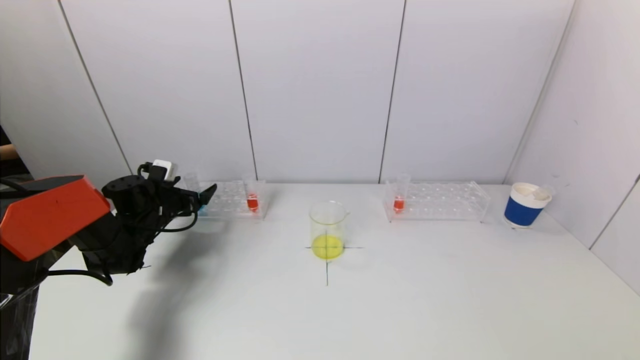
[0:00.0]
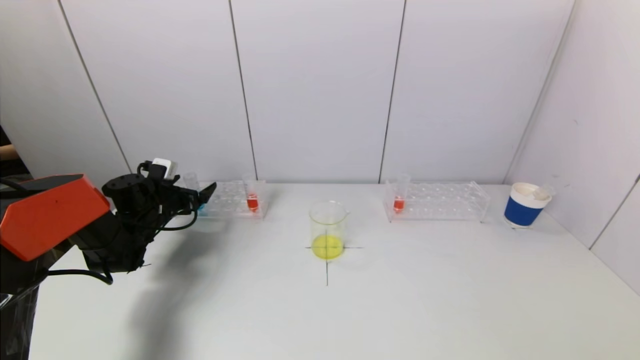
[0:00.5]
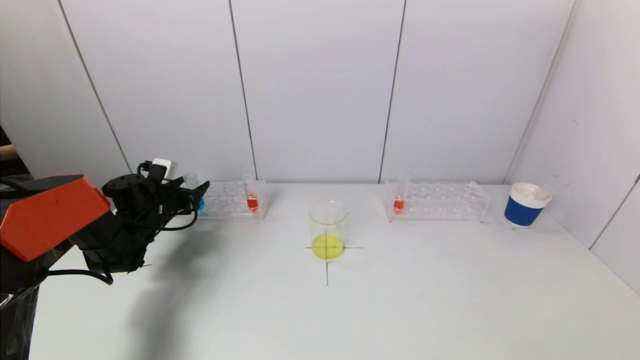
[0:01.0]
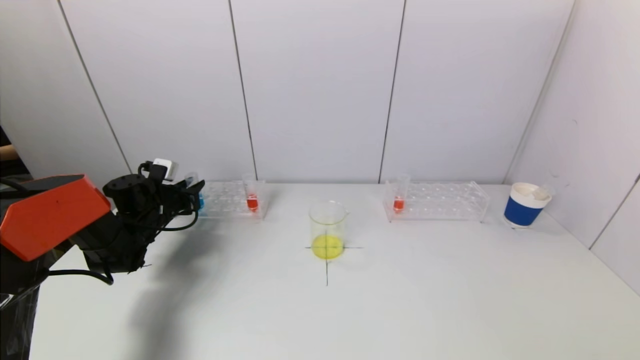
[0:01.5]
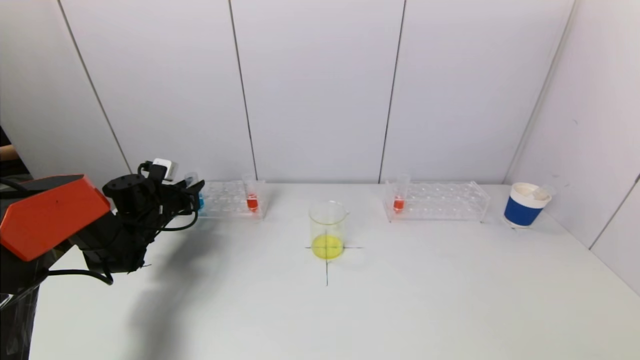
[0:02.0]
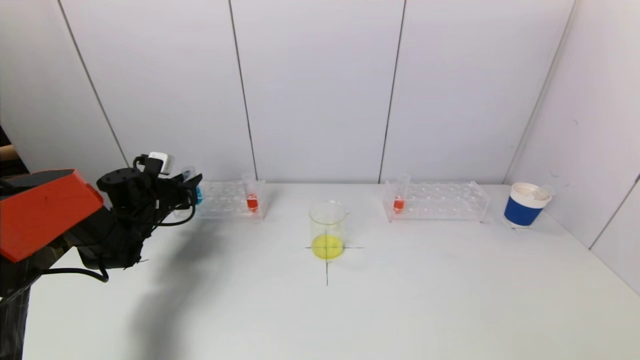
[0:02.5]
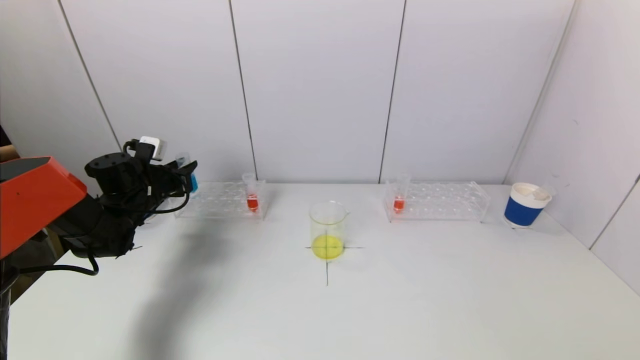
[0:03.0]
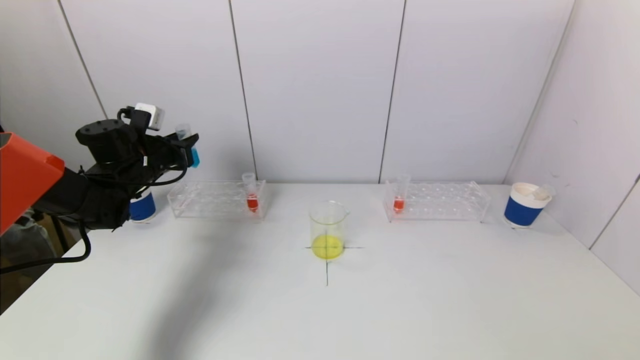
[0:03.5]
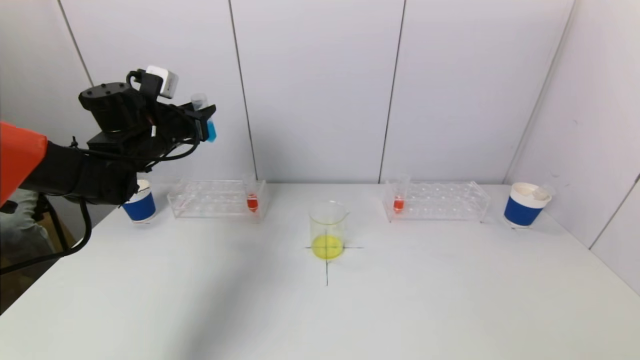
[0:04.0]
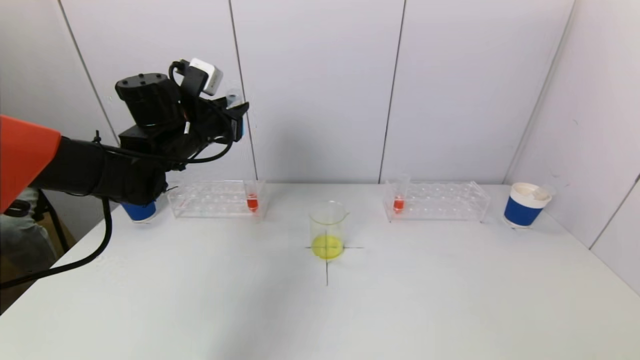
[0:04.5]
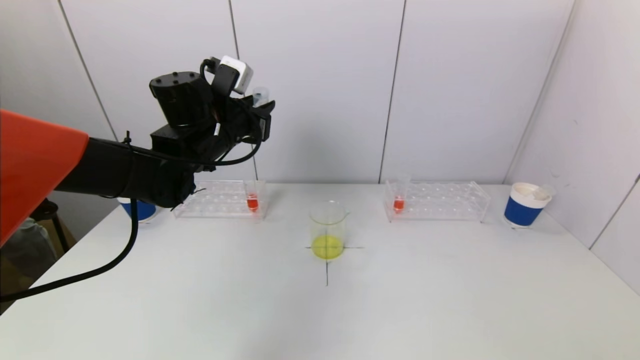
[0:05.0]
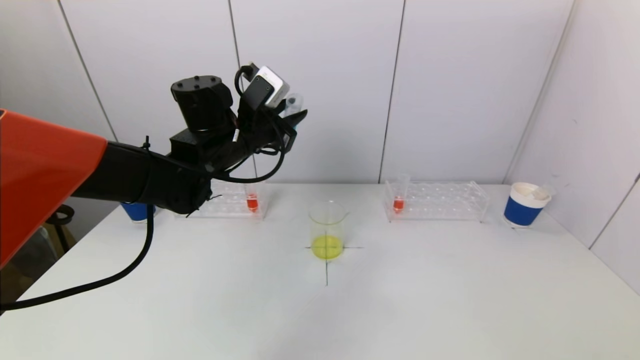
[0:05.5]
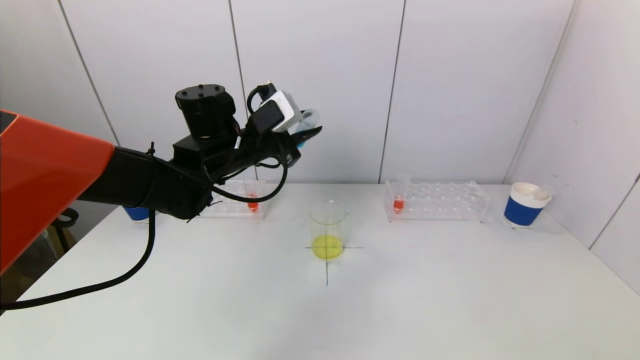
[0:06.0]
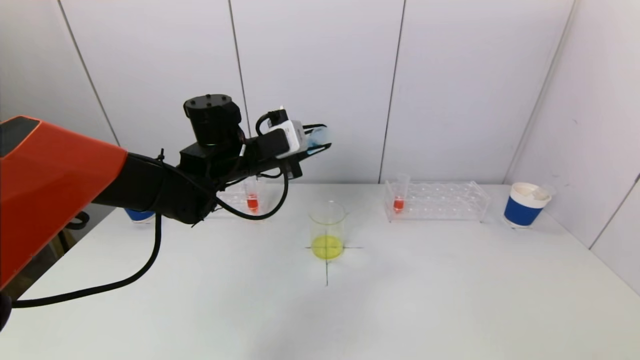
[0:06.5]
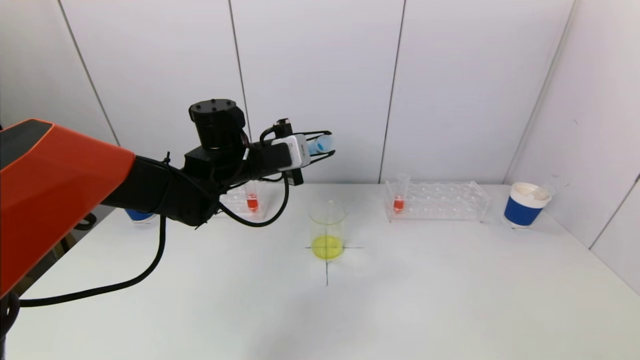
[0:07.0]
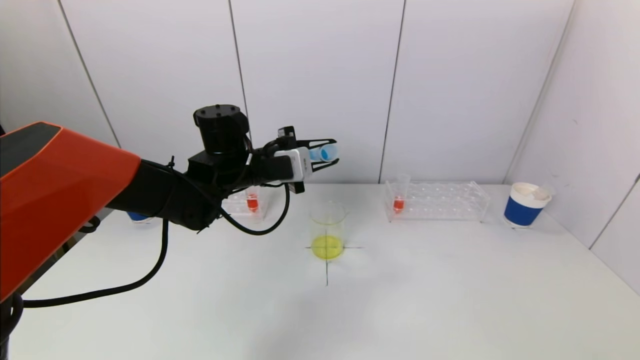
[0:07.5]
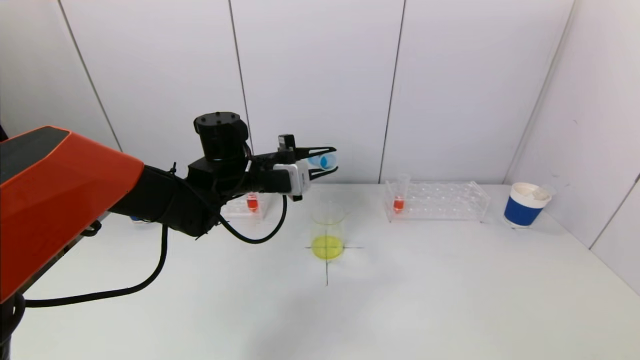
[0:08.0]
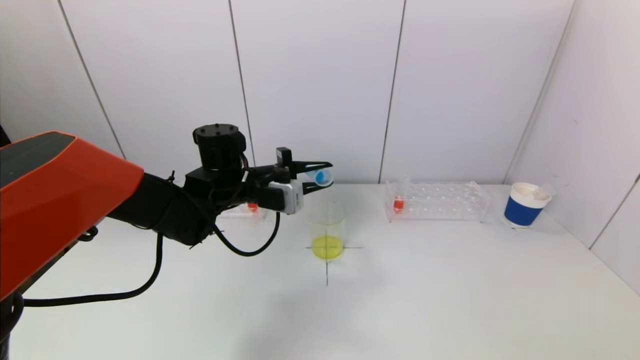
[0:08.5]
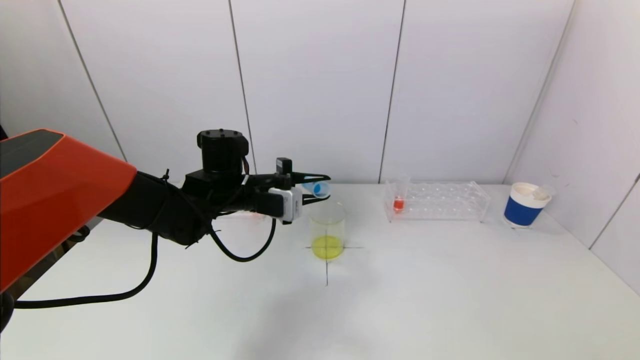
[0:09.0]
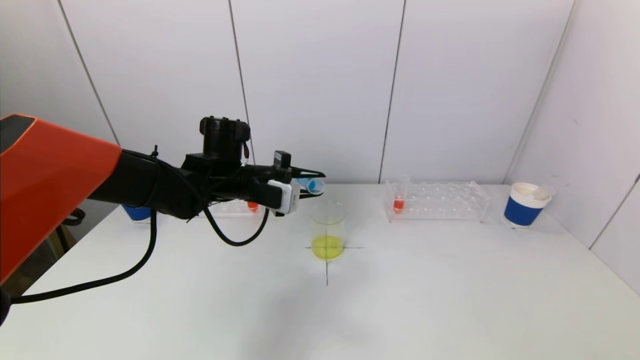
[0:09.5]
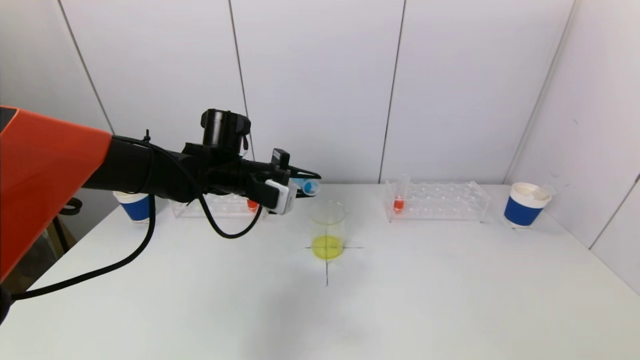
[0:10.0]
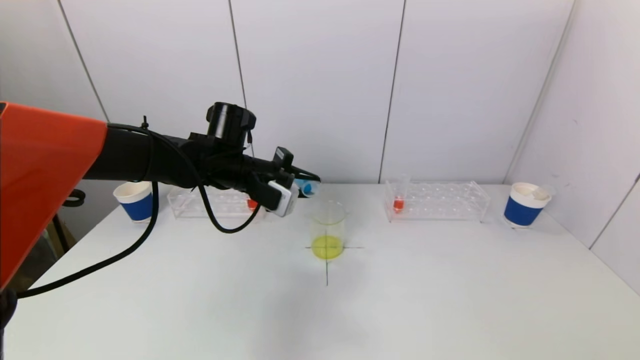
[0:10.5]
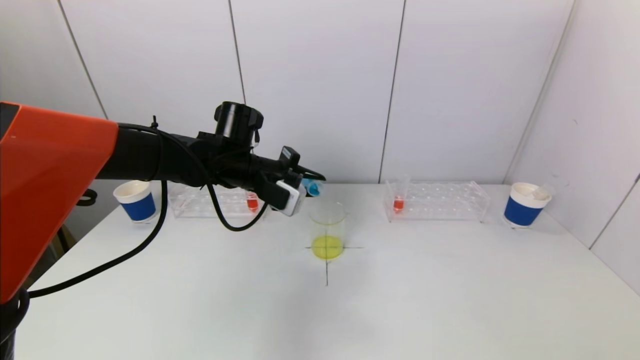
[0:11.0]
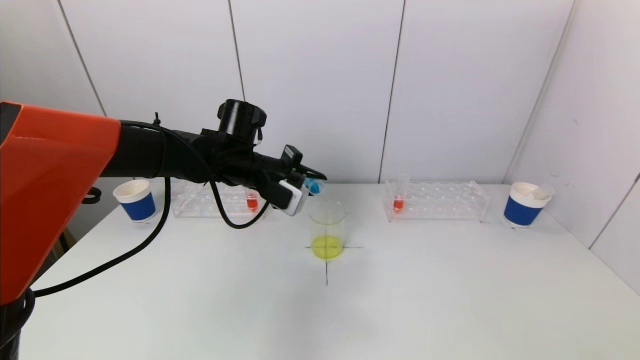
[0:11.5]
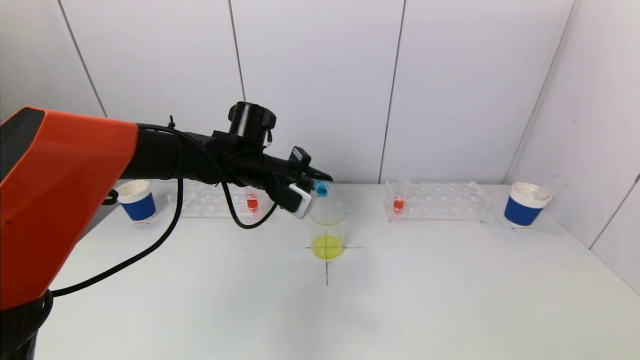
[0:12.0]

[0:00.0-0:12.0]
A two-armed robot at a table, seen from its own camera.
Task of the whole recording: pick up a test tube with pigment on left test tube rack and a test tube with pigment on right test tube rack by grippers and pour them into the beaker.
0:00.0 to 0:02.0: The left gripper closes.
0:02.0 to 0:04.0: The left gripper travels upward by some 20 cm.
0:04.0 to 0:06.0: The left gripper heads to the right, covering roughly 15 cm.
0:10.0 to 0:12.0: The grippers make only small movements.

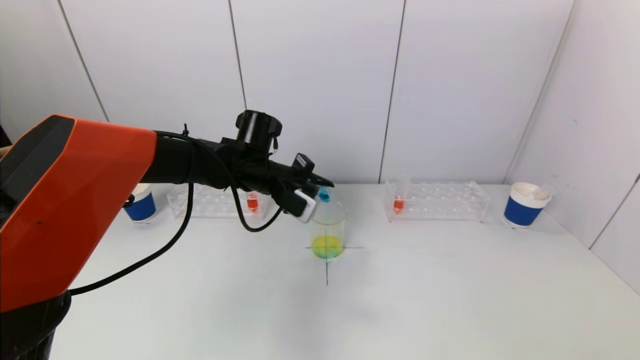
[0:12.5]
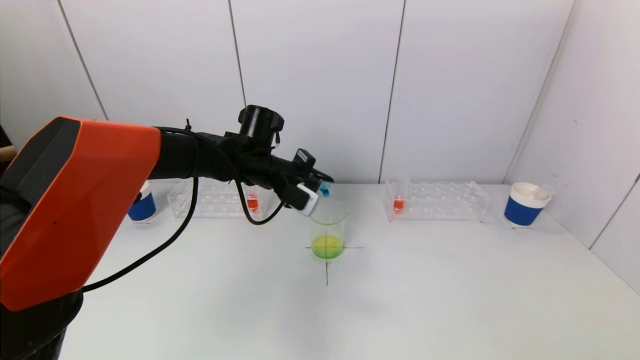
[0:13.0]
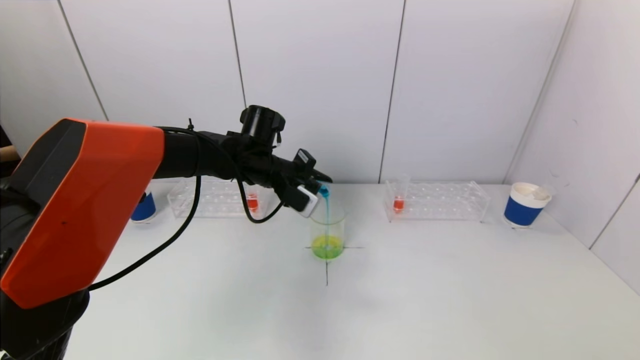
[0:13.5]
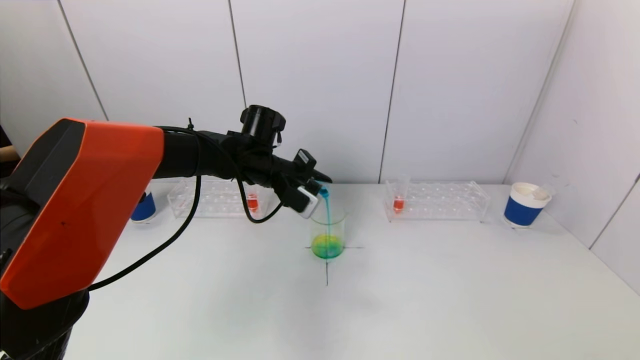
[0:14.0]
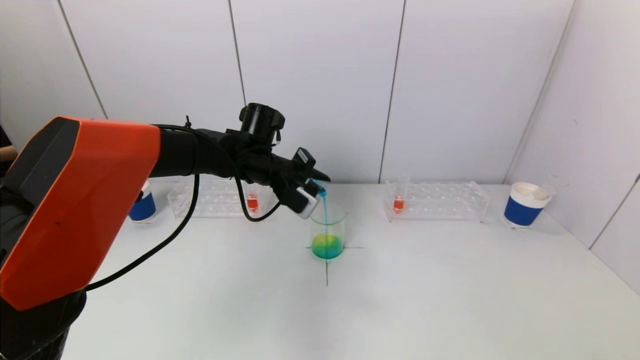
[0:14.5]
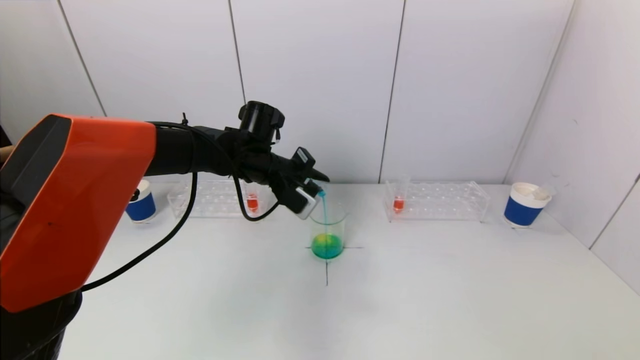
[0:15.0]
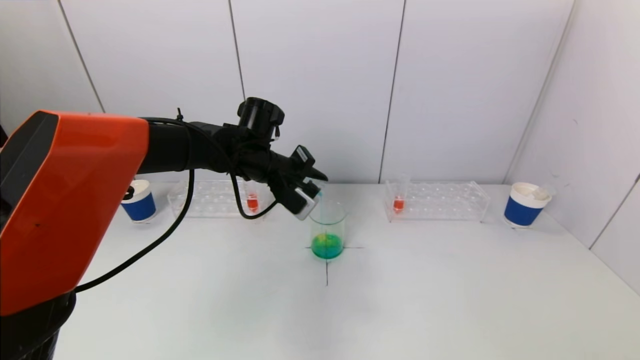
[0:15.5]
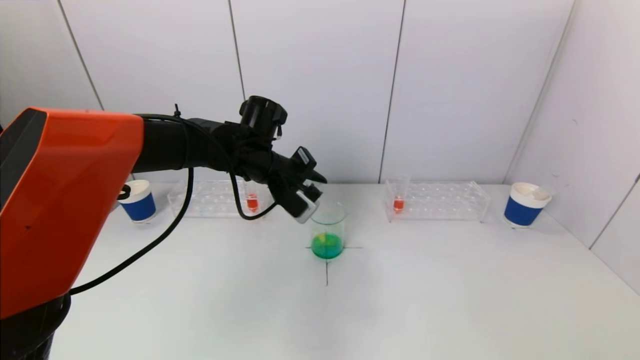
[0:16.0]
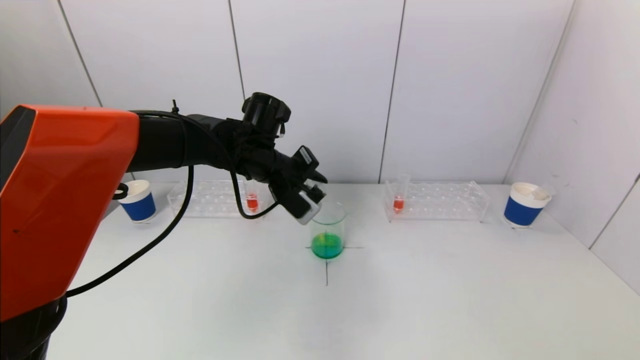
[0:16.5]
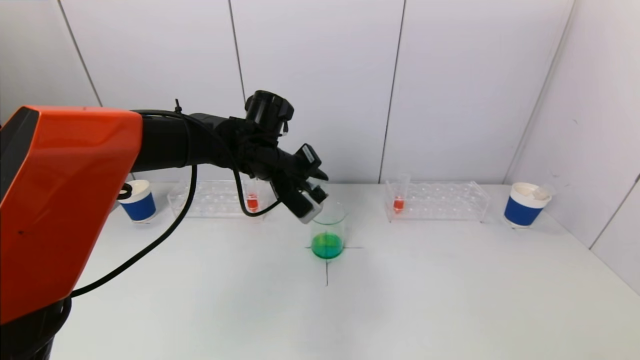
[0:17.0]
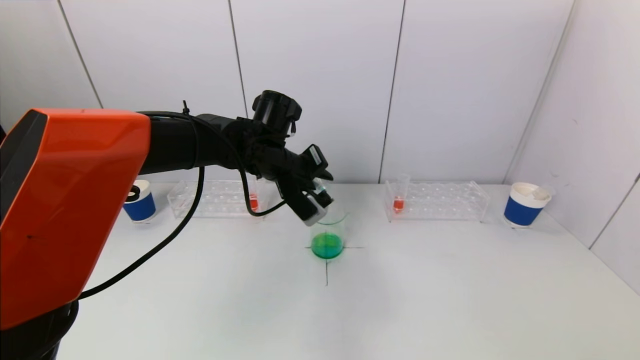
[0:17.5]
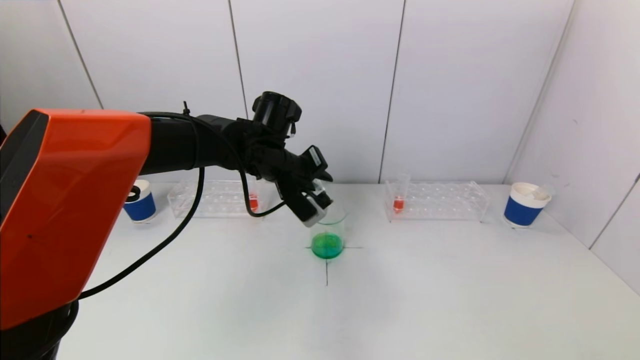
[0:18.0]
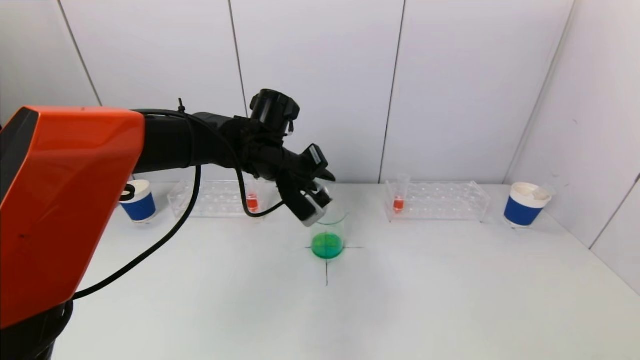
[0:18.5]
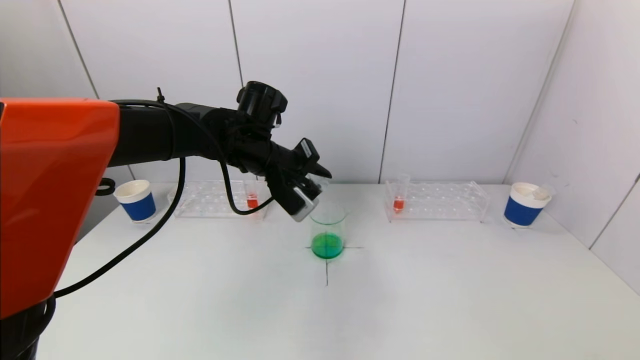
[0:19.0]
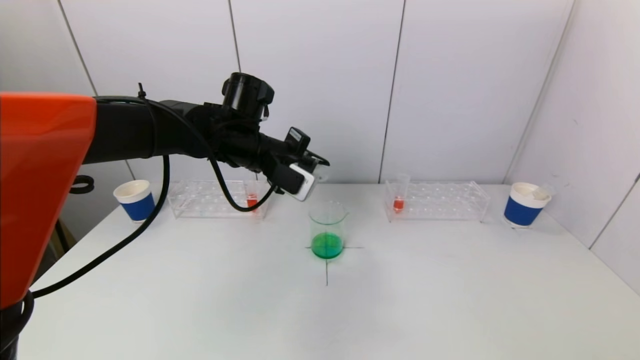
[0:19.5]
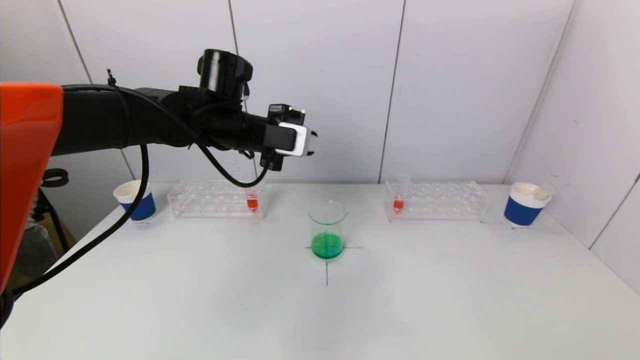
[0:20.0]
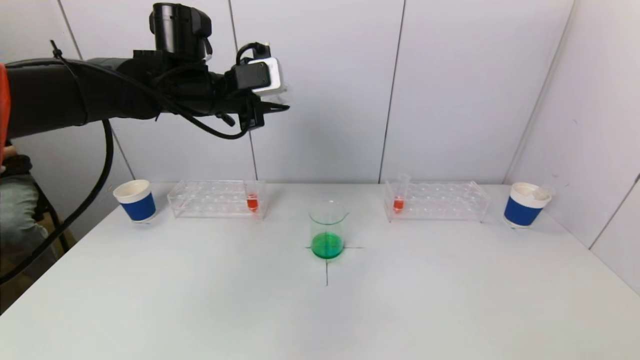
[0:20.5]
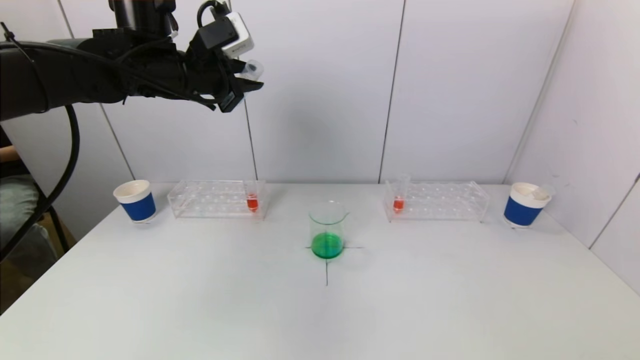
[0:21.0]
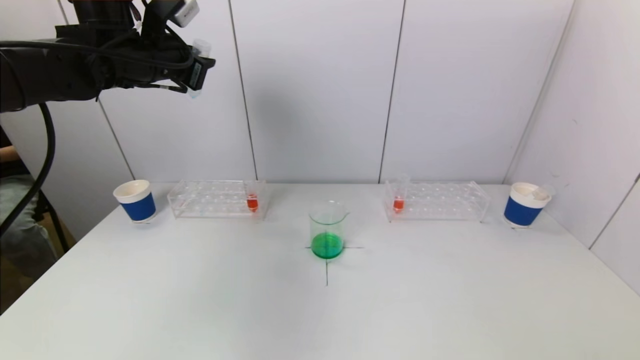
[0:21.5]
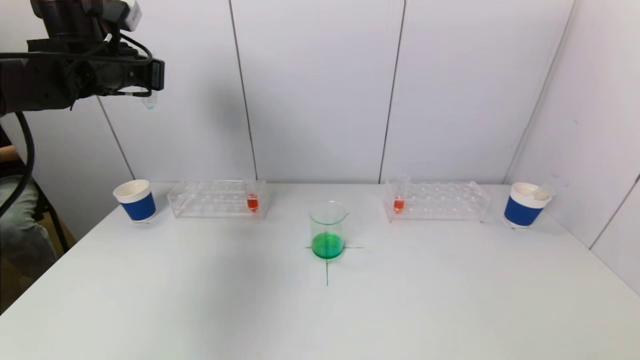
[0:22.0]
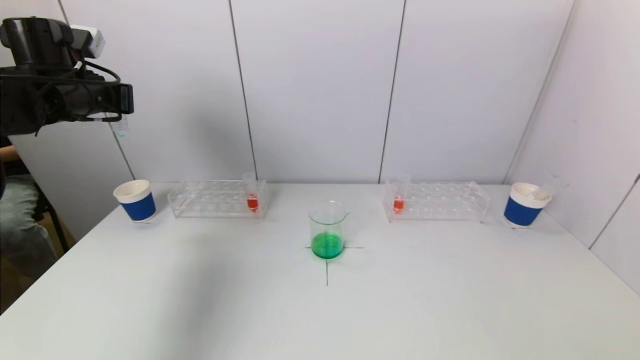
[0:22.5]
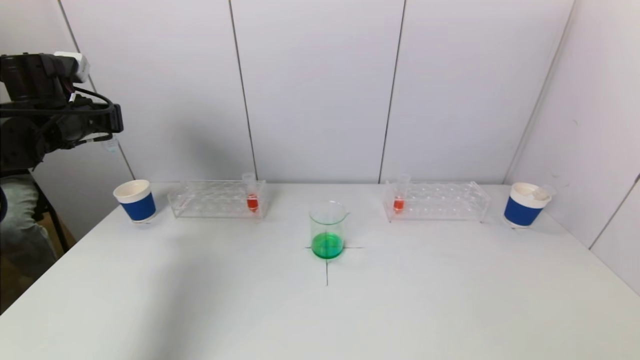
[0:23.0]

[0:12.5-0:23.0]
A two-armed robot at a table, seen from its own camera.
Task of the whole recording: pick up a test tube with pigment on left test tube rack and a test tube with pigment on right test tube rack by grippers and pour them into the beaker.
Step, 0:12.5 to 0:17.0: Pour the blue reagent into the graduated cylinder with the left gripper.
0:12.5 to 0:16.5: The grippers move only a little.
0:16.5 to 0:19.0: The grippers make only small movements.
0:19.0 to 0:21.0: The left gripper travels upward and to the left by approximately 15 cm.
0:21.0 to 0:23.0: The left gripper goes some 20 cm to the left and downward.
